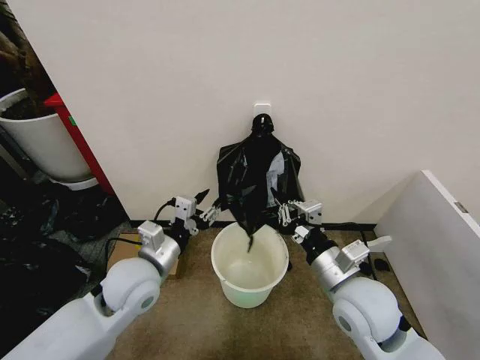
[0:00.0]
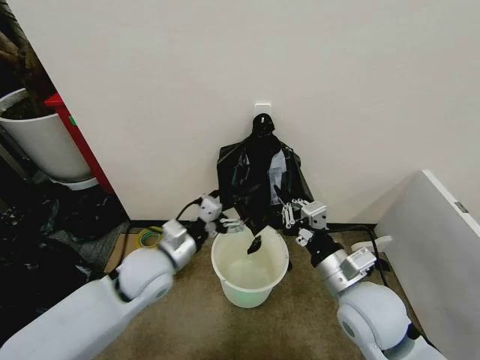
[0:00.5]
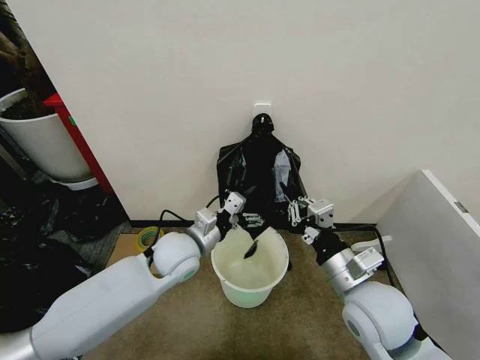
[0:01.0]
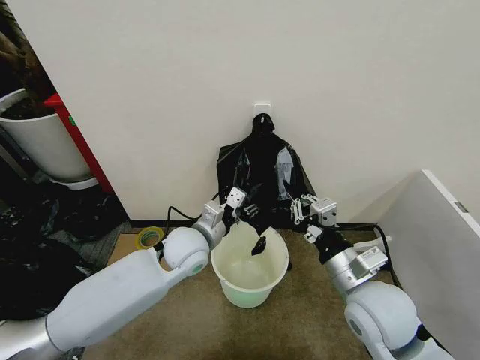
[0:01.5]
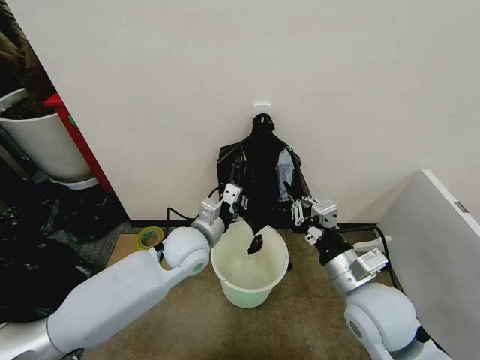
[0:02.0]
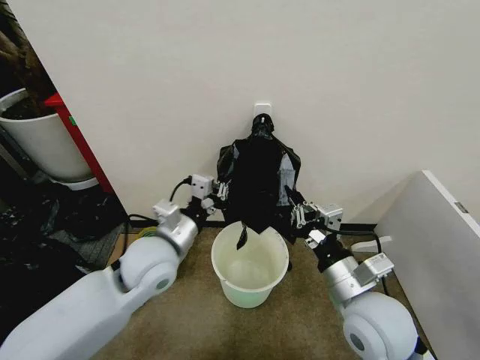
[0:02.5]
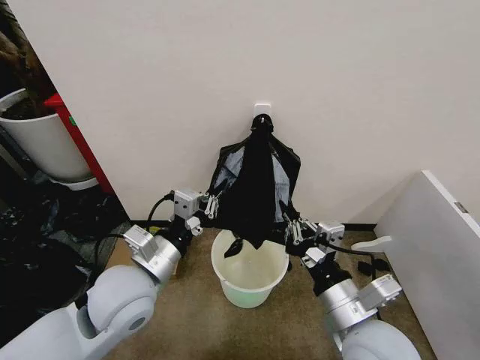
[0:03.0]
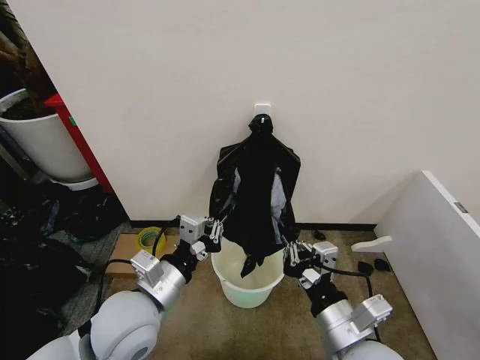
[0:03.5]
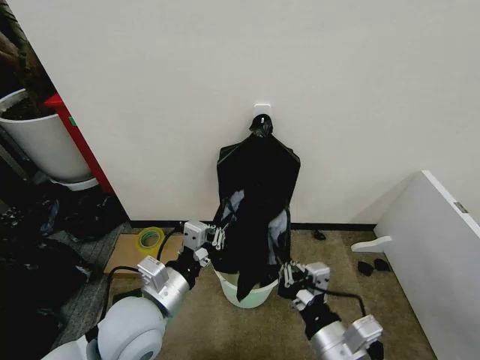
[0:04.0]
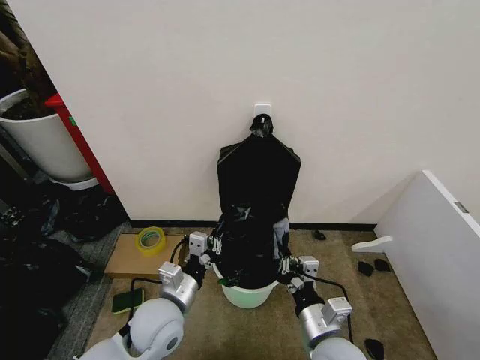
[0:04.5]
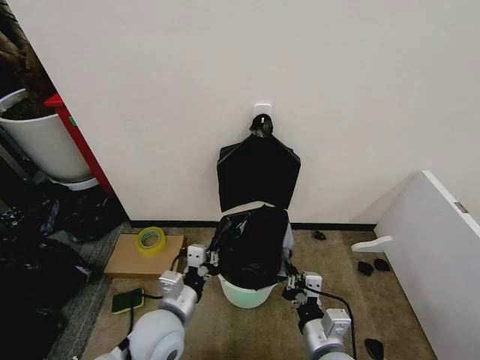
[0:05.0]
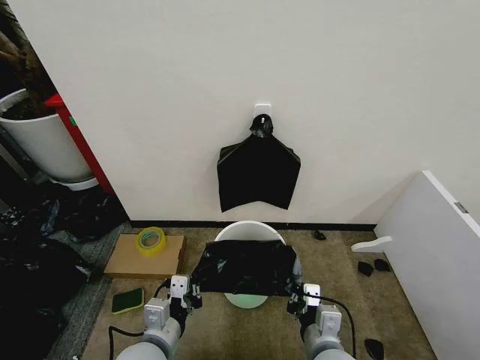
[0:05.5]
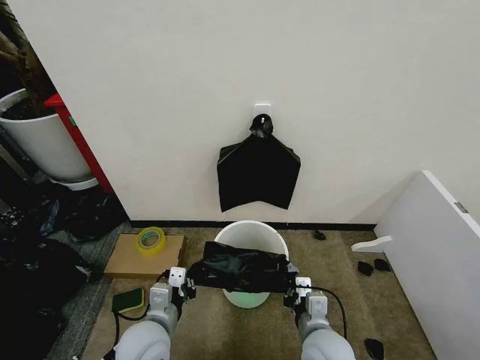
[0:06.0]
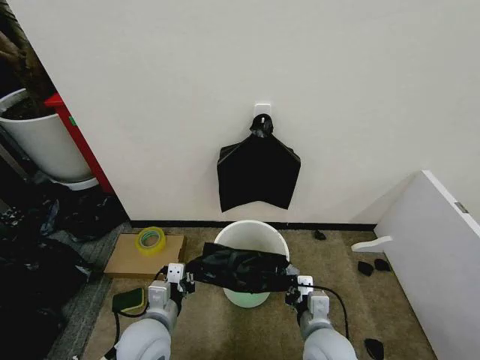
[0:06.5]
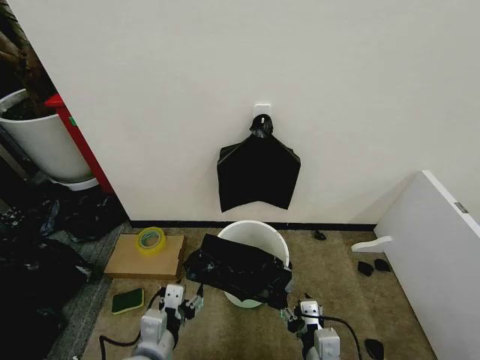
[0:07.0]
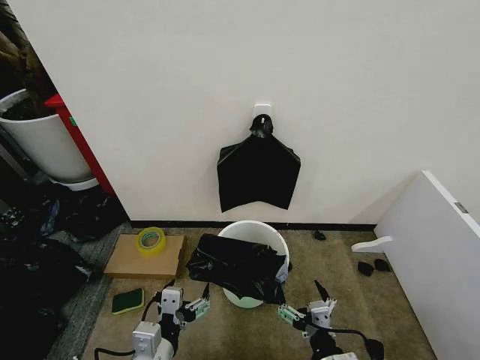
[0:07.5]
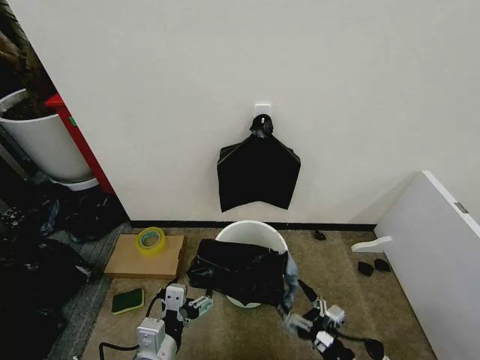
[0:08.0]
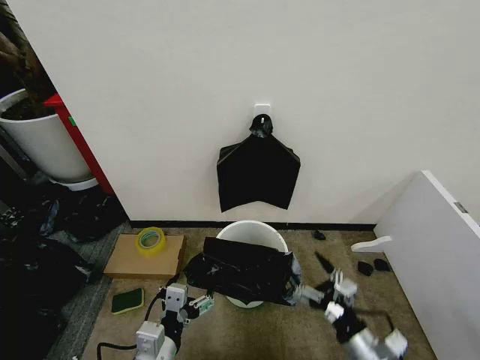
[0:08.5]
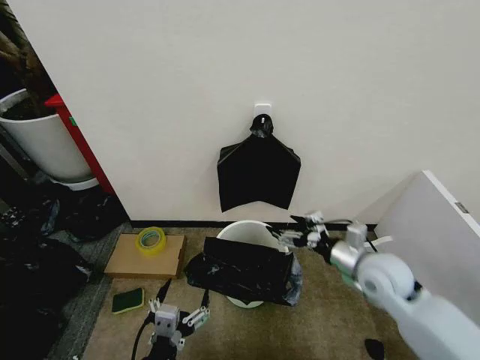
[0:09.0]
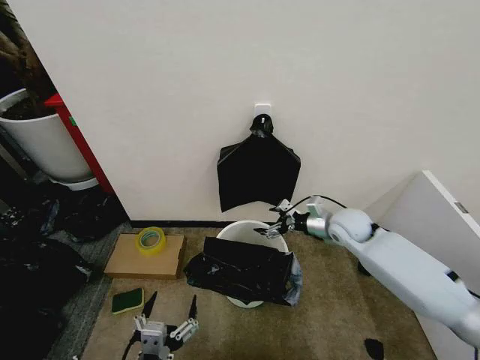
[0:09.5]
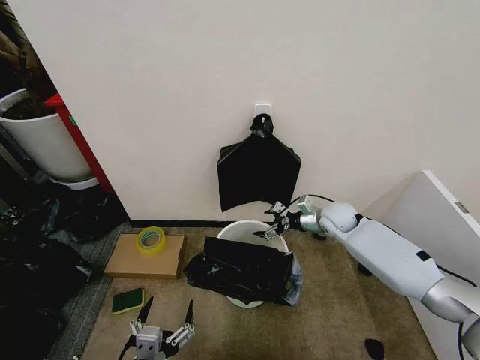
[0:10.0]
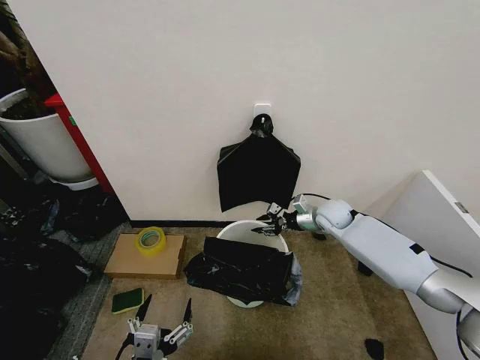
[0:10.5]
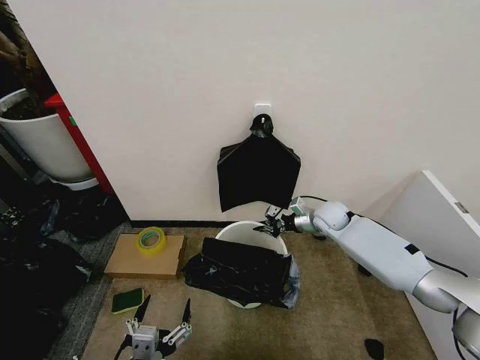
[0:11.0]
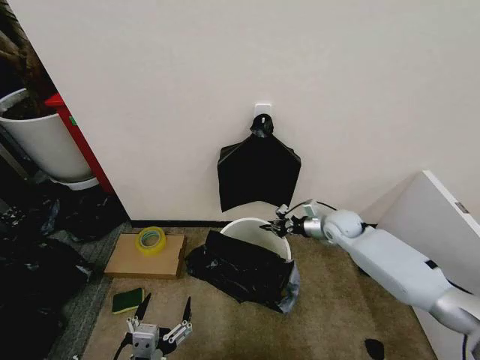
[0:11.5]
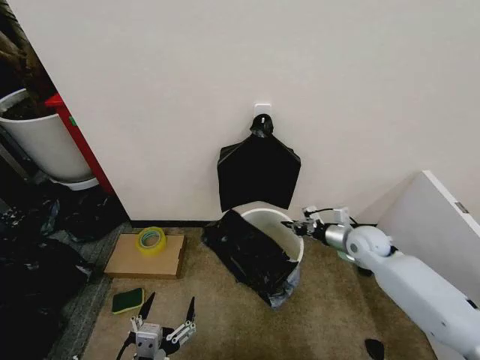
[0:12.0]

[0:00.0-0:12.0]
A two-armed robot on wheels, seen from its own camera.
Task of the whole recording: Place the garbage bag over the trash bin.
0:00.0 to 0:02.0: The left gripper is displaced to the right and forward by about 10 cm, and closes its fingers.
0:02.0 to 0:04.0: The two grippers go approximately 15 cm backward.
0:04.0 to 0:06.0: The right gripper shifts about 10 cm downward and forward. Meanwhile the left gripper shifts roughly 10 cm downward.
0:06.0 to 0:08.0: The right gripper heads to the right and backward, covering some 15 cm, and opens its fingers; the left gripper goes some 10 cm backward, and opens.
0:08.0 to 0:10.0: The left gripper travels backward by roughly 10 cm; the right gripper moves forward, roughly 40 cm.
0:10.0 to 0:12.0: The right gripper moves backward and to the right, some 10 cm, and closes up.

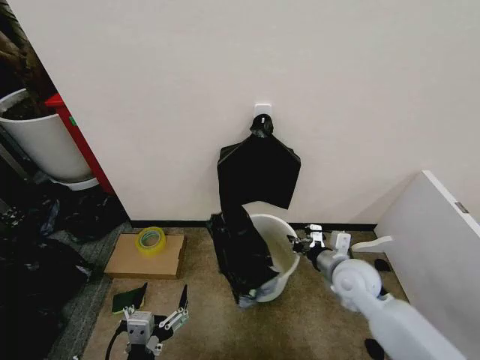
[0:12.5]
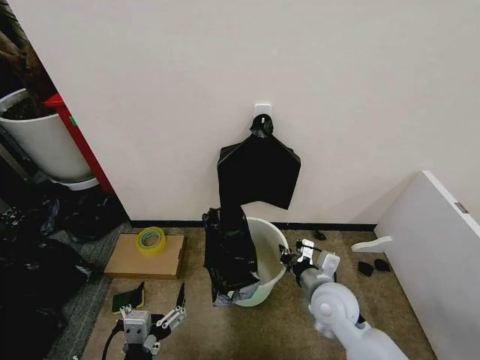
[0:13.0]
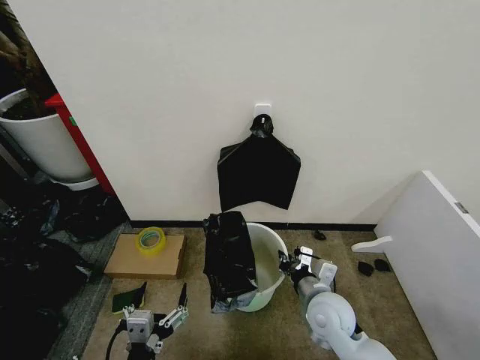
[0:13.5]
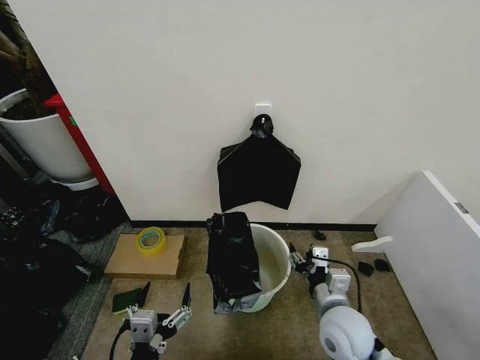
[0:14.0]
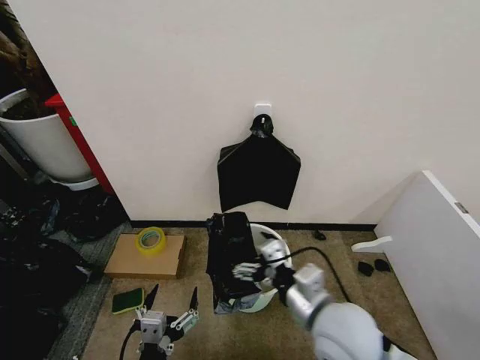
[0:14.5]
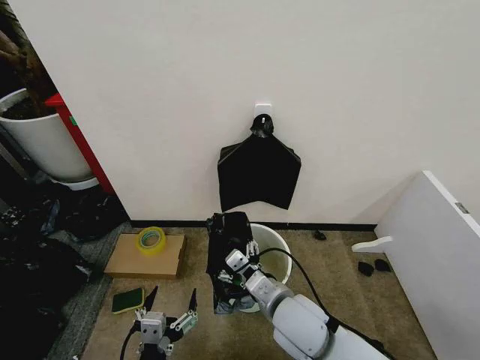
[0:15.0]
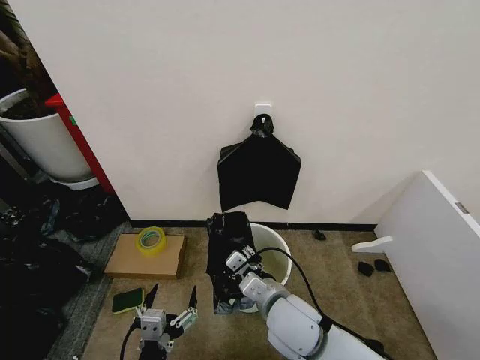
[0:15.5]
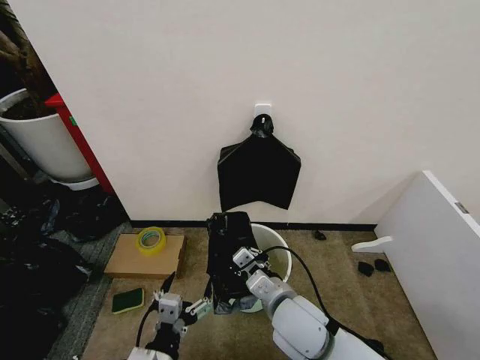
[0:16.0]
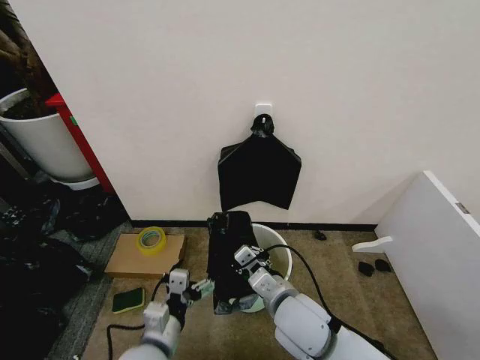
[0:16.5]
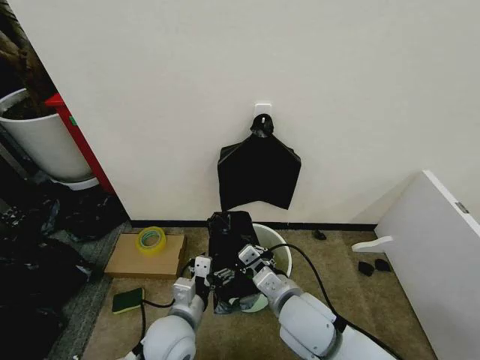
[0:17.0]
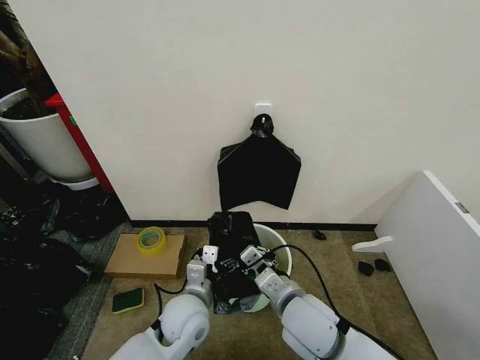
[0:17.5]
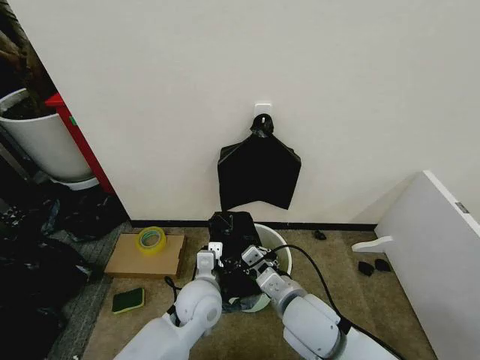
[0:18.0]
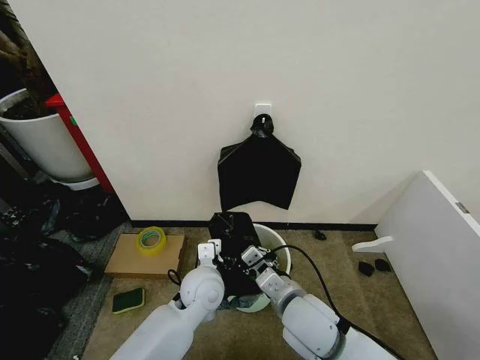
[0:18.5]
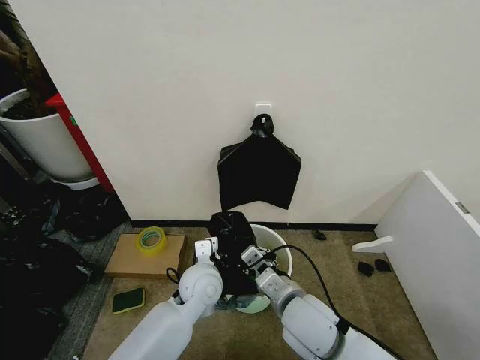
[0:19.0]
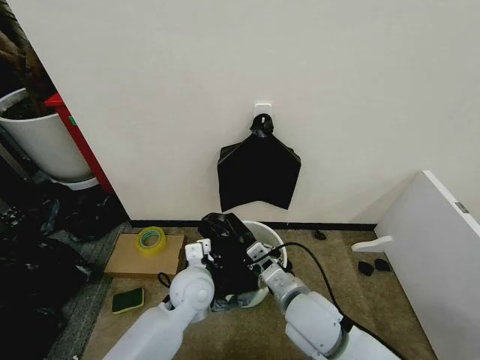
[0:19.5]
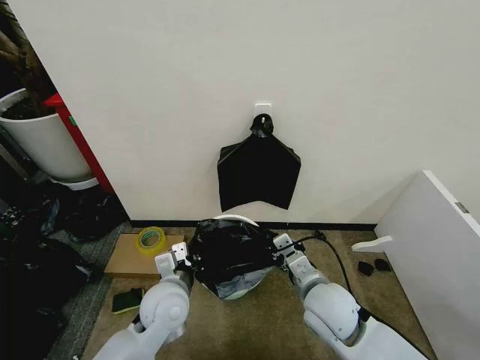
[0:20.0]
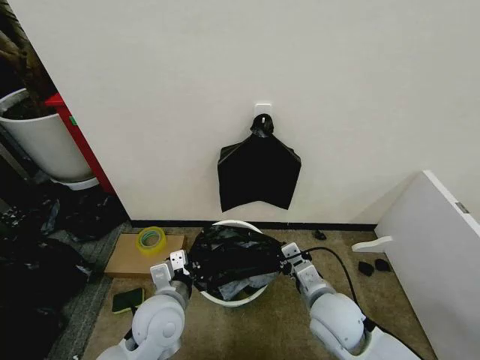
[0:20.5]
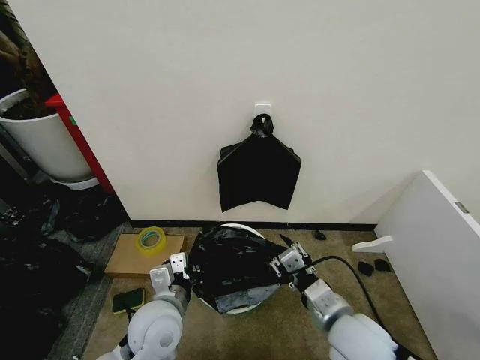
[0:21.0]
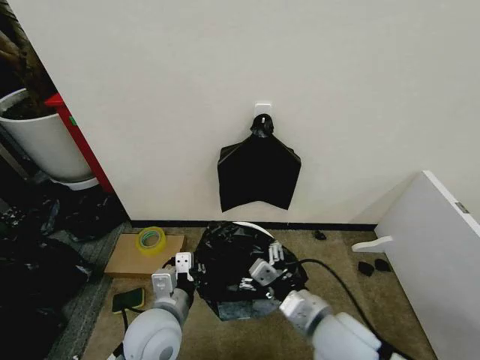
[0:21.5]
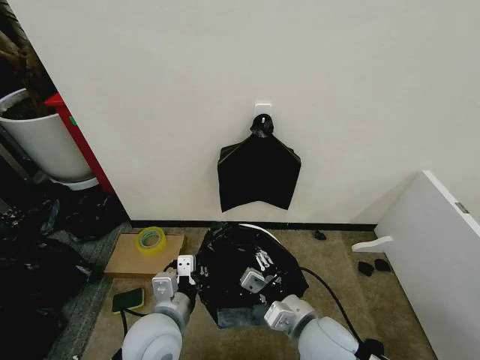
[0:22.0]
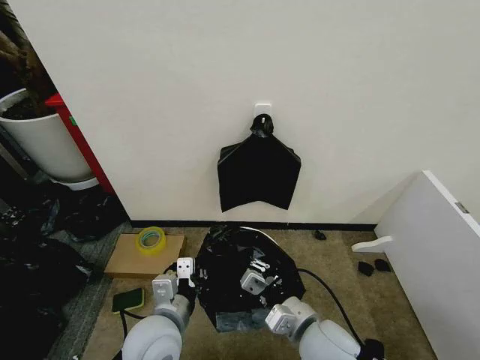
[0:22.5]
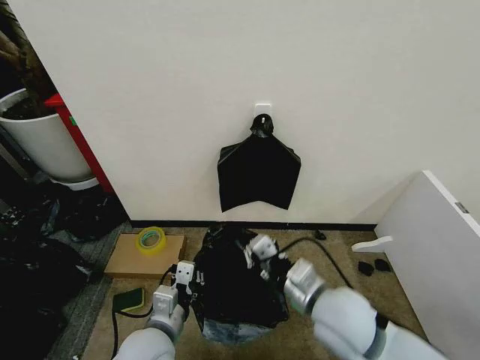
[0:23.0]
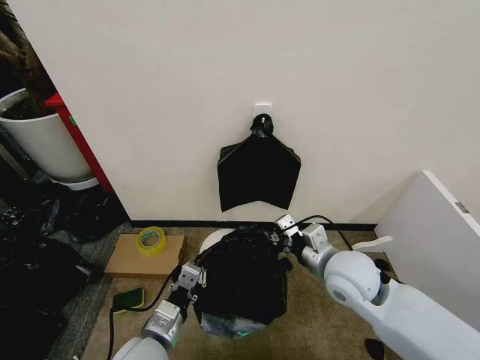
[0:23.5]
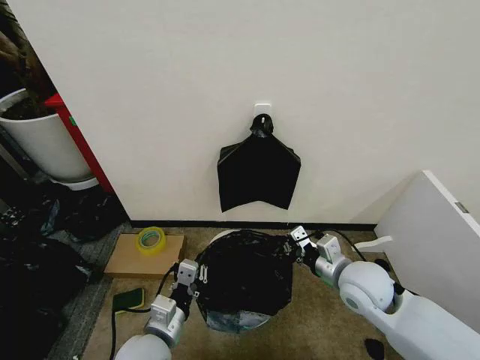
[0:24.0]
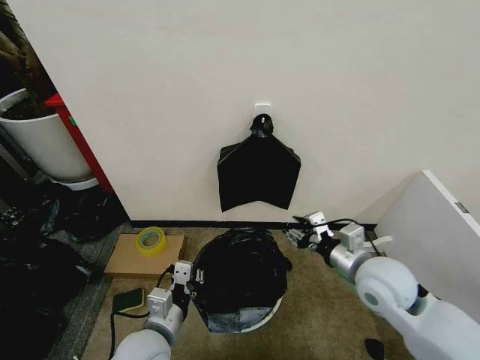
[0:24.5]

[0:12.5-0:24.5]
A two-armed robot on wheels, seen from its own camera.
Task of the whole recording: Place the garbage bag over the trash bin.
0:12.5 to 0:14.5: The right gripper travels backward, upward and to the left by approximately 20 cm, and opens its fingers.
0:14.5 to 0:16.5: The right gripper shifts some 10 cm to the left and downward, and closes its fingers. The left gripper moves forward, approximately 10 cm.
0:16.5 to 0:18.5: The left gripper shifts approximately 15 cm forward and to the right.
0:18.5 to 0:20.5: The right gripper is displaced to the right by some 5 cm. Meanwhile the left gripper travels to the left and backward by some 10 cm, and closes.
0:20.5 to 0:22.5: The right gripper heads backward, covering about 5 cm, and opens, then closes once more.
0:22.5 to 0:24.5: The right gripper heads to the right, forward and upward, covering approximately 15 cm, and opens.

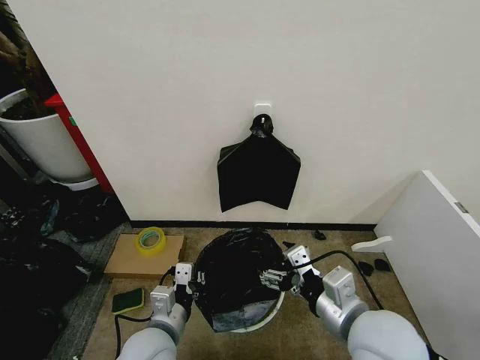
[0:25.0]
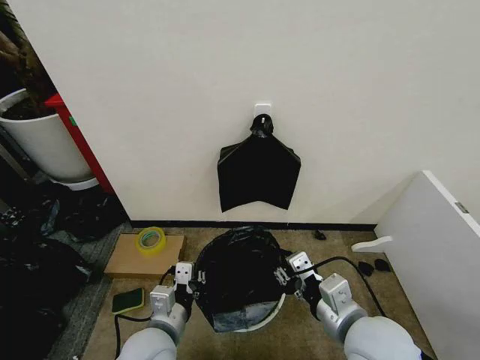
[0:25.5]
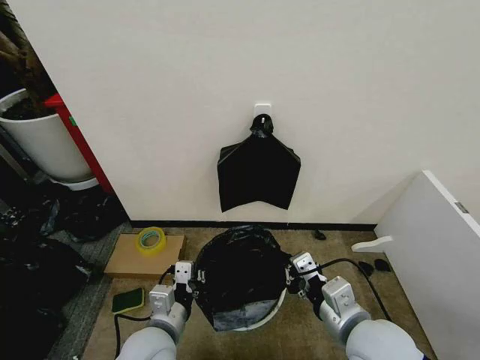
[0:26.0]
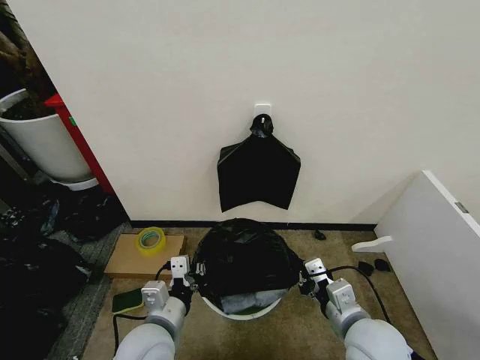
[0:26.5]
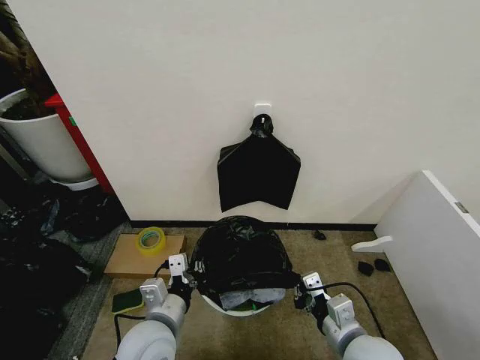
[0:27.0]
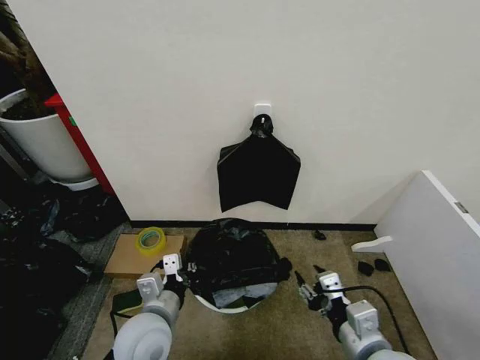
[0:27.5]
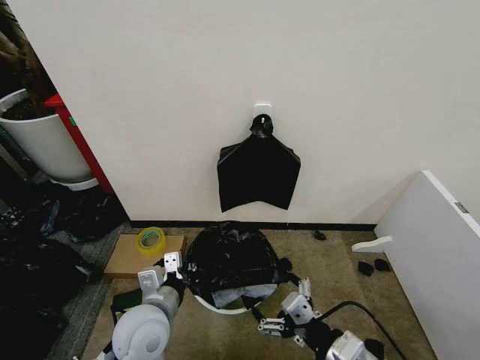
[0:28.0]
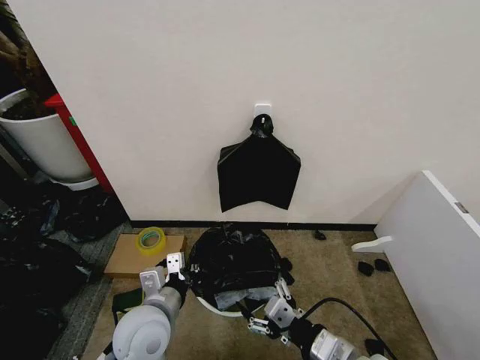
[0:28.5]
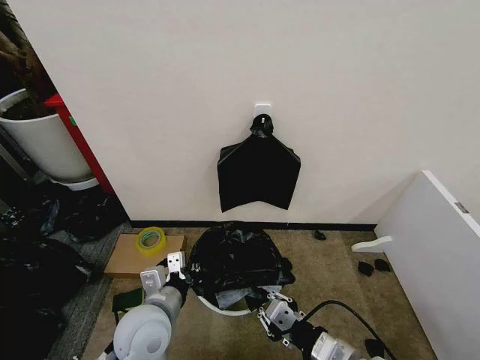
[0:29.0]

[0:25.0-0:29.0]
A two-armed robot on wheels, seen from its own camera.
Task of the whole recording: Place the garbage bag over the trash bin.
0:25.0 to 0:27.0: The right gripper moves downward, about 10 cm, and closes.
0:27.0 to 0:29.0: The right gripper opens, then closes again.
